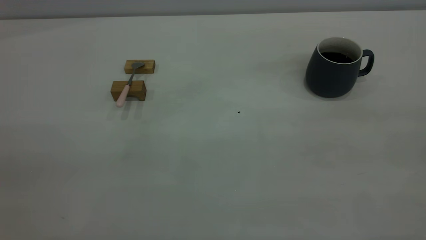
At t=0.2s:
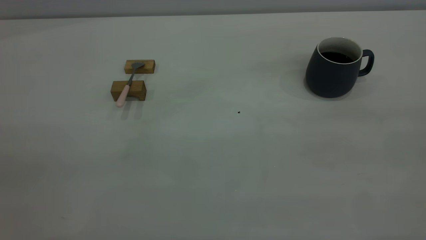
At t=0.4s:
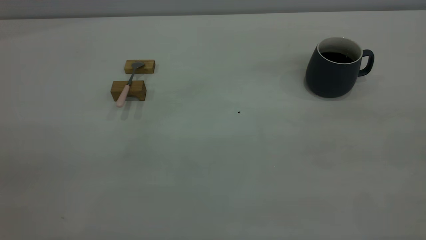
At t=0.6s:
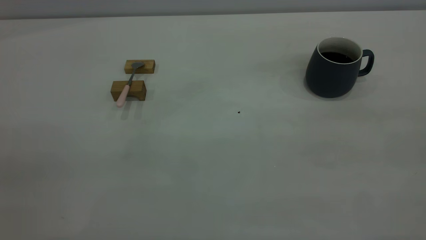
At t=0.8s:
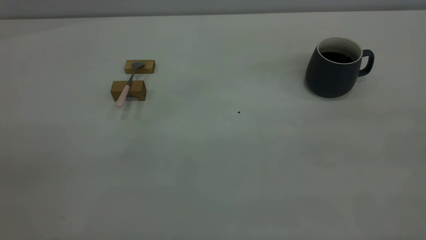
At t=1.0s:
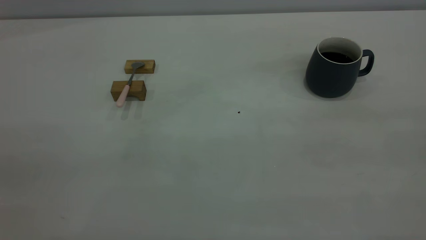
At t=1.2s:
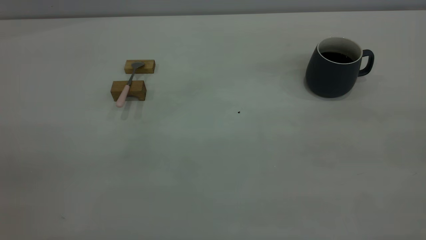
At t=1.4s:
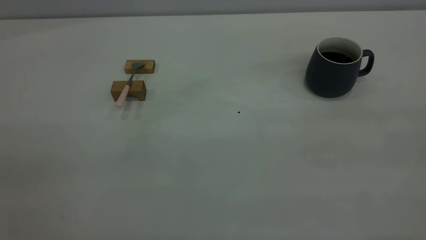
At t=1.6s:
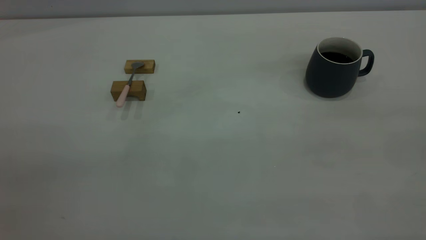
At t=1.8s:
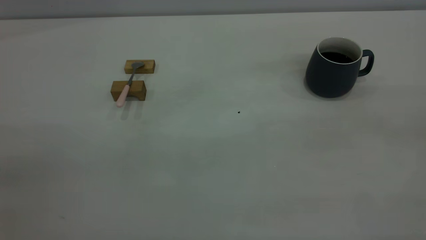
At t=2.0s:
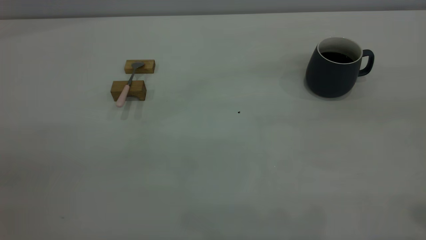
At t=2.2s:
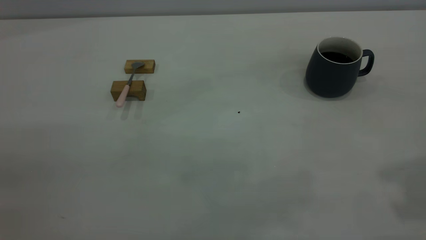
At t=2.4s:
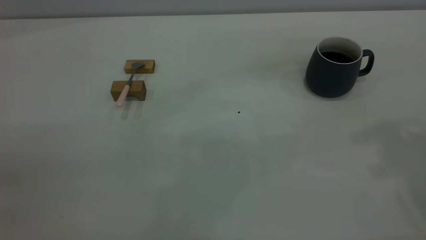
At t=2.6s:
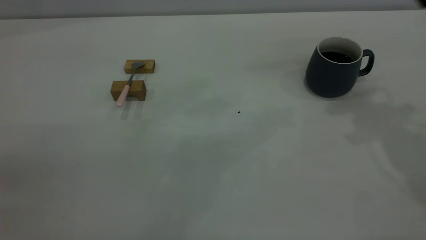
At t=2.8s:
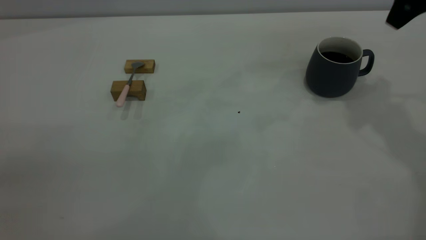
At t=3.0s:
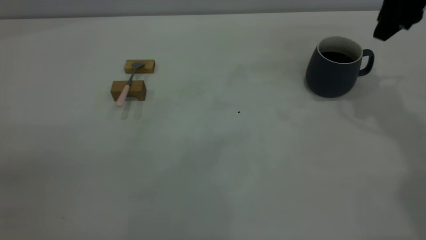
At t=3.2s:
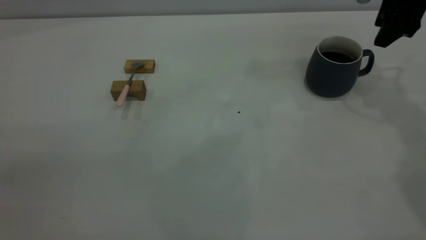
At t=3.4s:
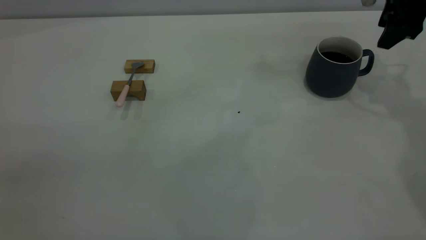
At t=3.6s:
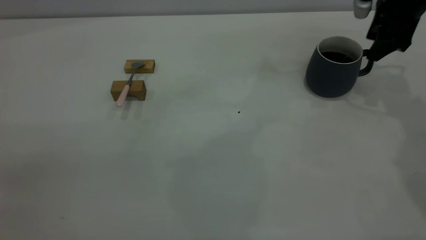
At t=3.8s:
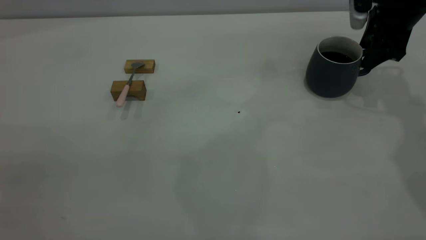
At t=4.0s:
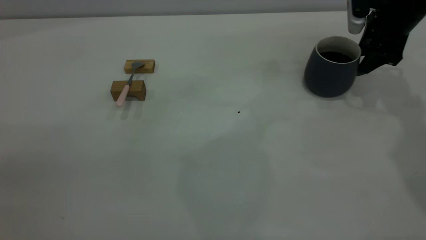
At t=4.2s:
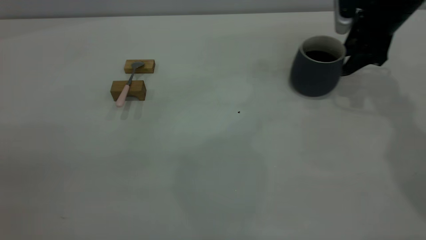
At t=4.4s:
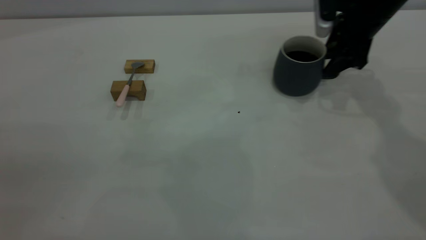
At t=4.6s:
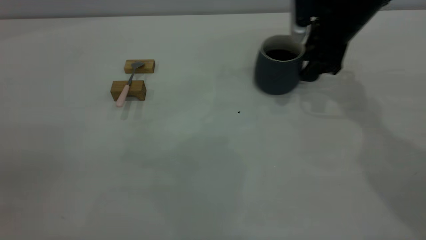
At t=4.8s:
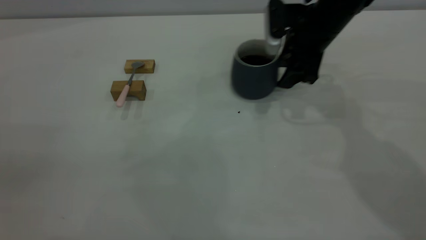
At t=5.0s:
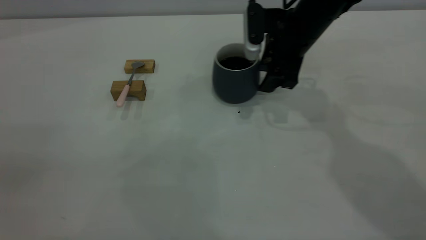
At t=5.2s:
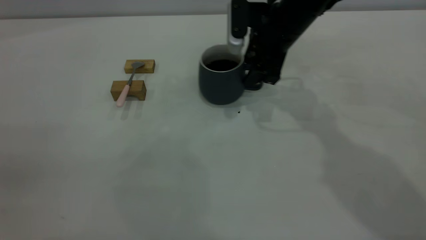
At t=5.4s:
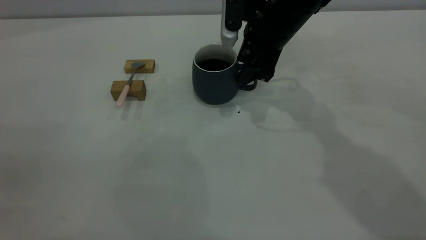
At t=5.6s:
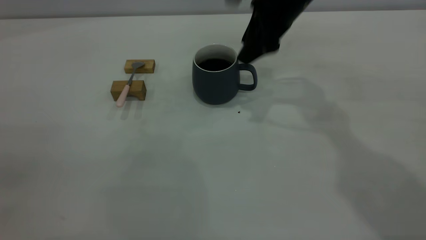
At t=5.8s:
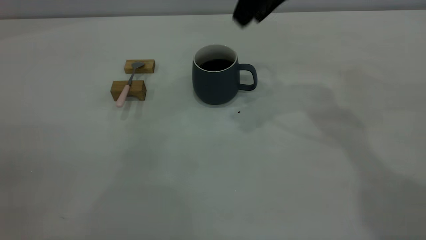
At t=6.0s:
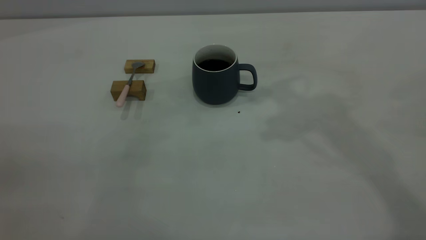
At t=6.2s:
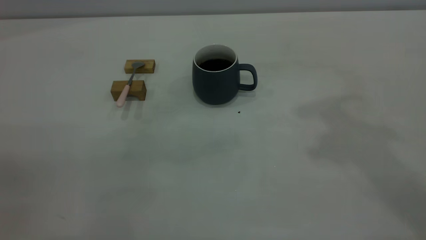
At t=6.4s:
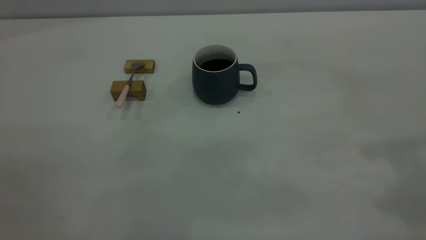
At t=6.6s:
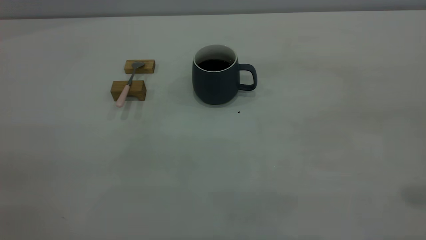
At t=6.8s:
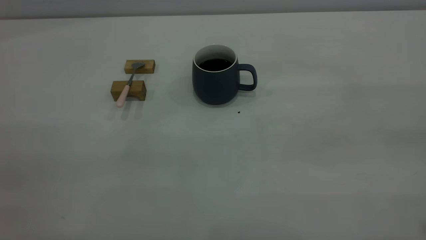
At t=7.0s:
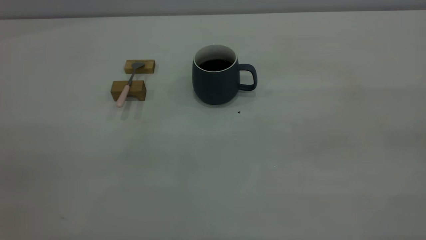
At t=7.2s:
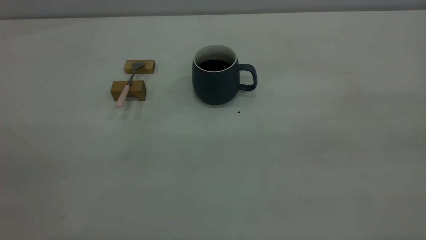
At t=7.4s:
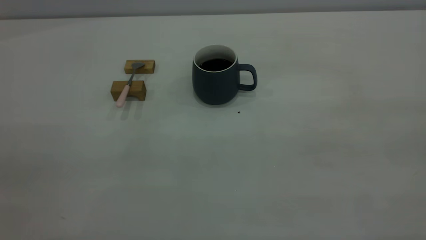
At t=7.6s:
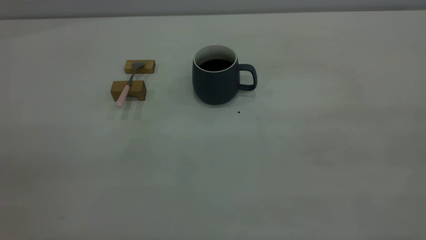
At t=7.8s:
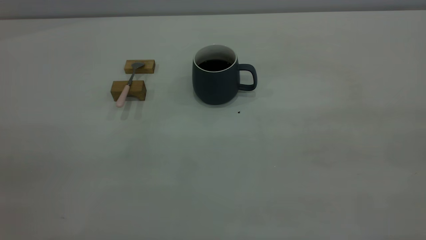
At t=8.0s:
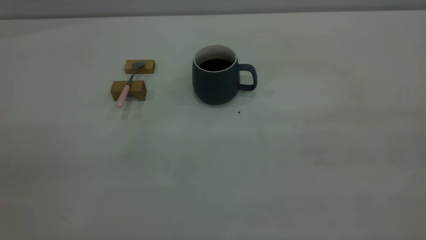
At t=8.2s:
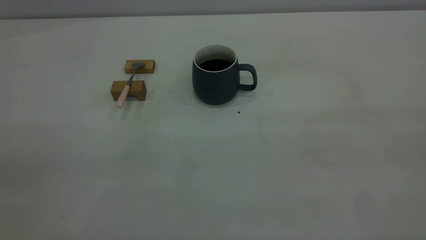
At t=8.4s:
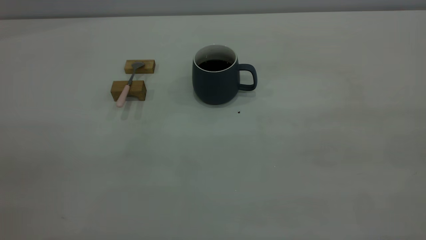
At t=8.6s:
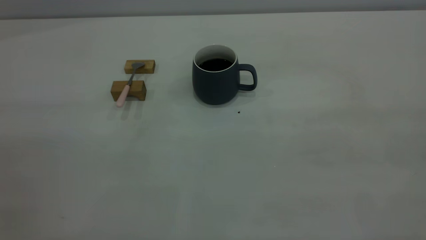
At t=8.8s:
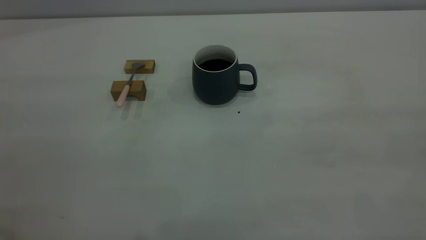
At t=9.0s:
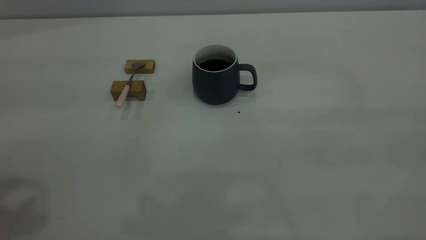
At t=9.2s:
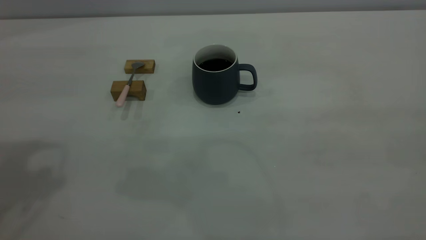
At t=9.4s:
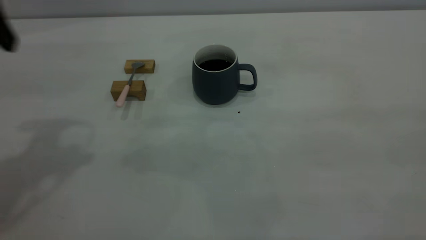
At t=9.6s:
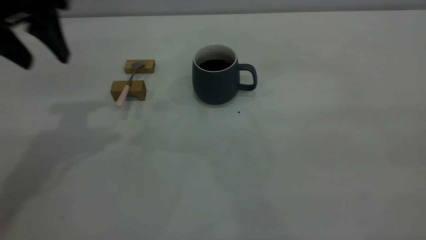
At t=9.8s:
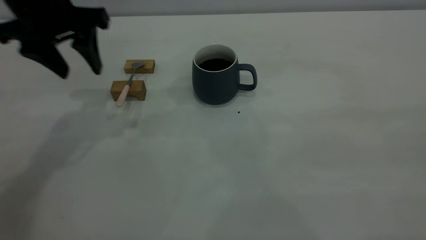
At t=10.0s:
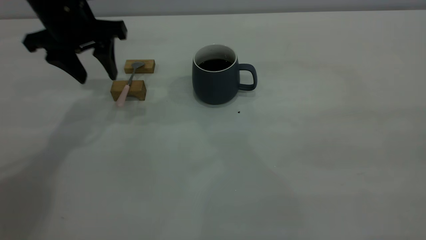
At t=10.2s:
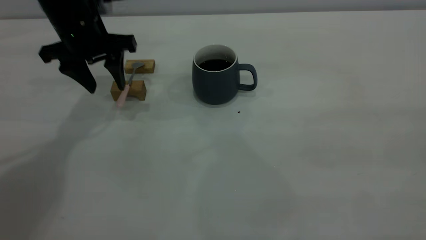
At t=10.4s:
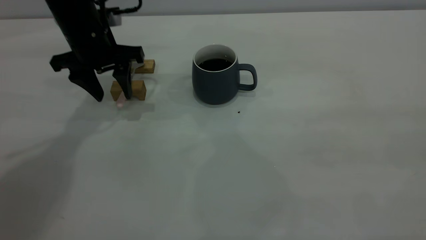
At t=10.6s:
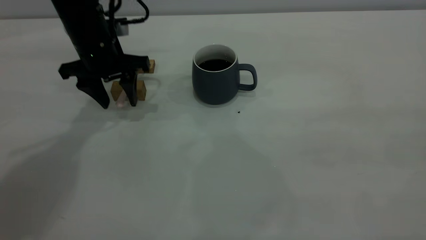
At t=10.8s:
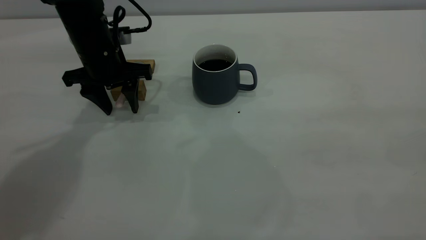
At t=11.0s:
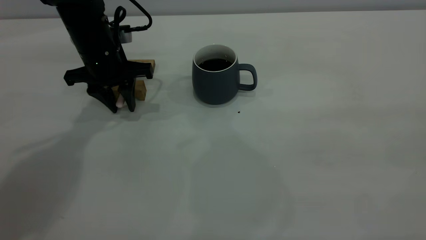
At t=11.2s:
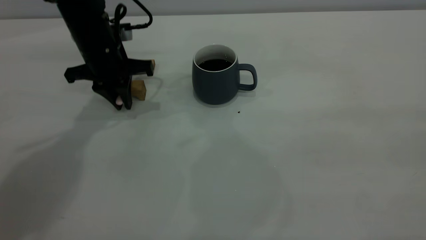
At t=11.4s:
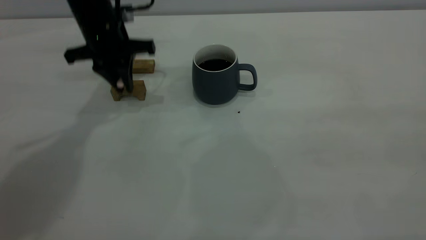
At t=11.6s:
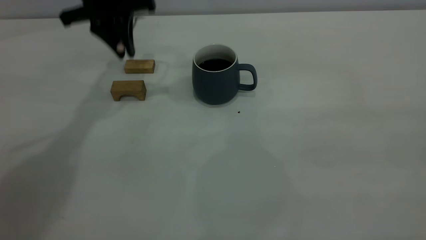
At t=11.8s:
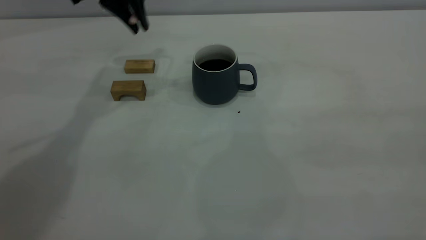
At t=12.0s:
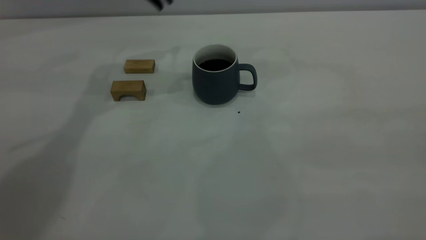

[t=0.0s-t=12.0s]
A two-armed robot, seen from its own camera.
Step, t=0.0s to t=5.6s: Move the cup with coffee to the center of view.
Step, t=5.8s to t=11.4s: Pick up the spoon.
t=0.0s to t=1.6s: The two grippers keep their place.
t=1.6s to t=3.0s: The right gripper moves forward, about 40 cm, and closes its fingers.
t=3.0s to t=4.4s: The right gripper heads downward, covering some 10 cm, and opens.
t=4.4s to t=6.0s: The right gripper travels upward and backward by roughly 25 cm.
t=9.0s to t=10.4s: The left gripper moves downward and forward, about 35 cm.
t=10.4s to t=12.0s: The left gripper heads upward and to the right, covering some 15 cm, and closes.

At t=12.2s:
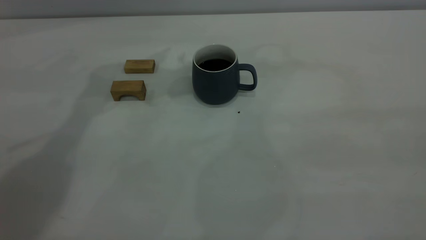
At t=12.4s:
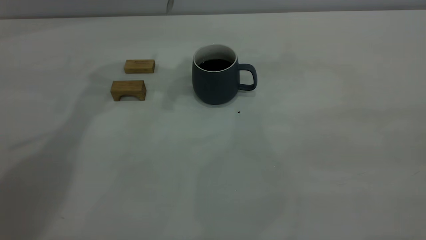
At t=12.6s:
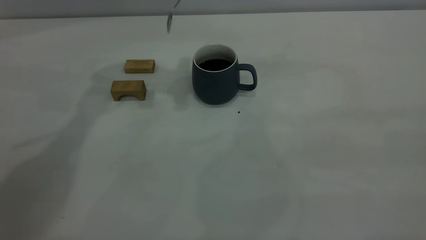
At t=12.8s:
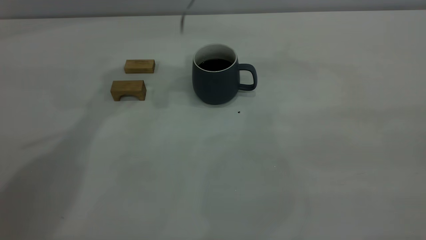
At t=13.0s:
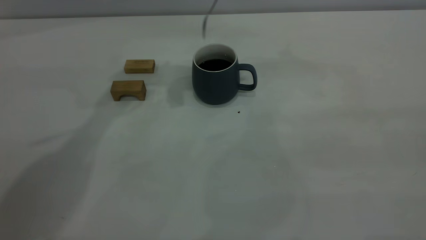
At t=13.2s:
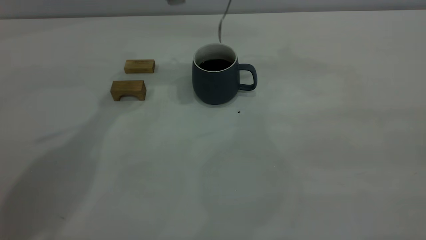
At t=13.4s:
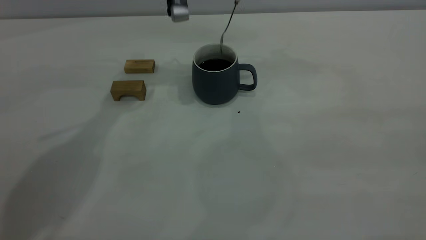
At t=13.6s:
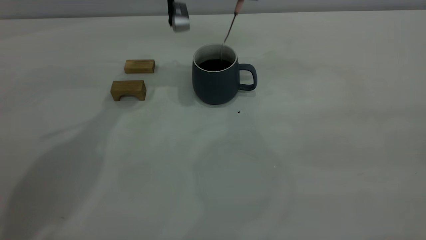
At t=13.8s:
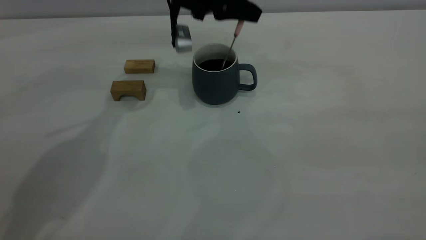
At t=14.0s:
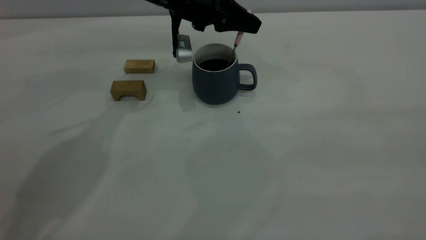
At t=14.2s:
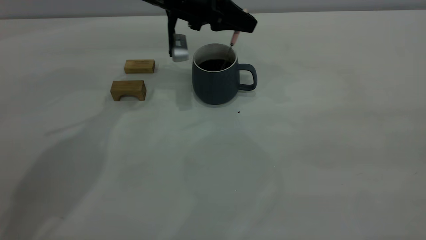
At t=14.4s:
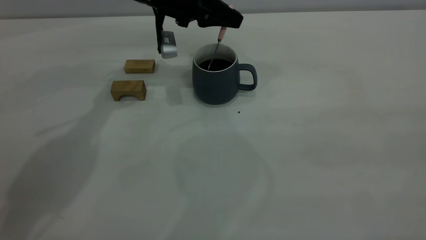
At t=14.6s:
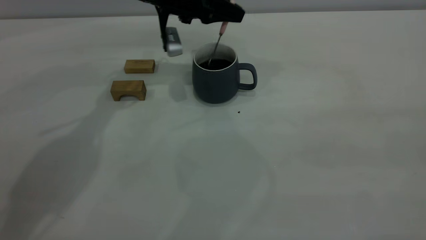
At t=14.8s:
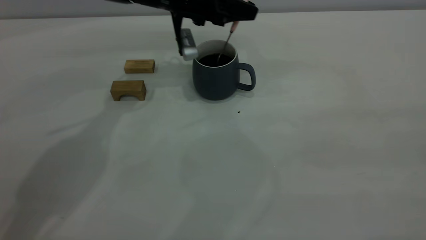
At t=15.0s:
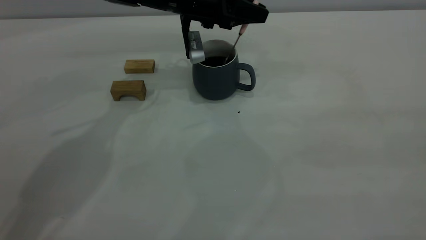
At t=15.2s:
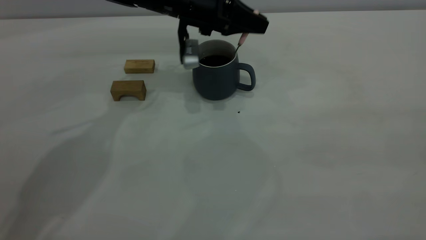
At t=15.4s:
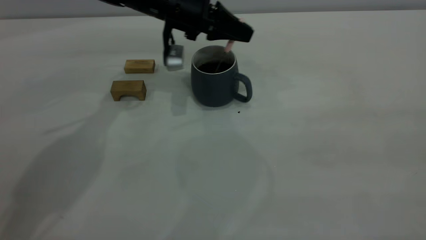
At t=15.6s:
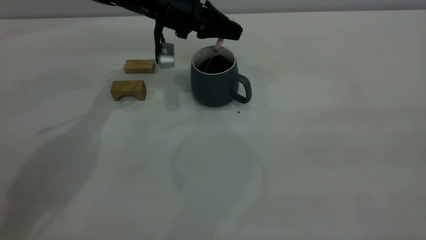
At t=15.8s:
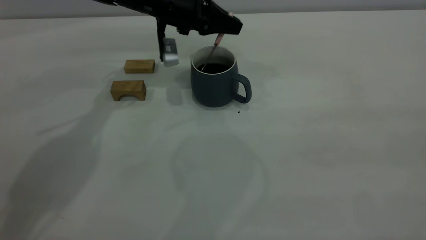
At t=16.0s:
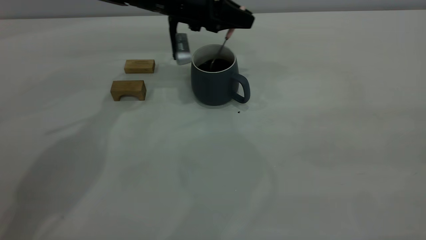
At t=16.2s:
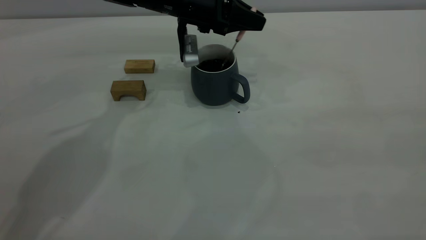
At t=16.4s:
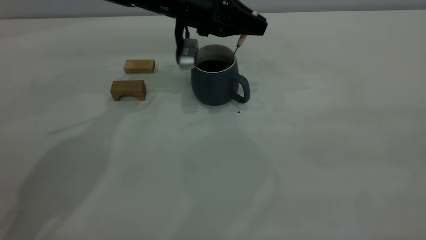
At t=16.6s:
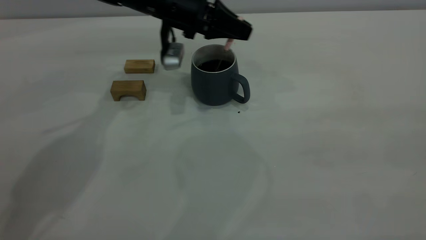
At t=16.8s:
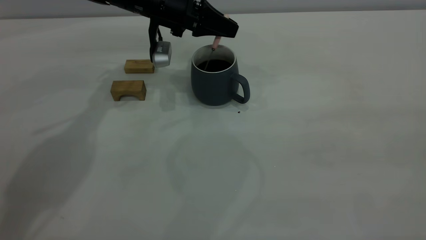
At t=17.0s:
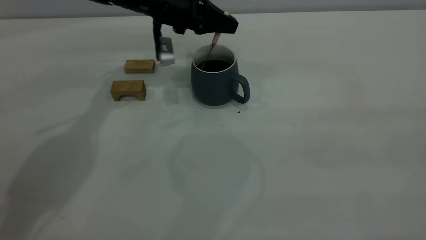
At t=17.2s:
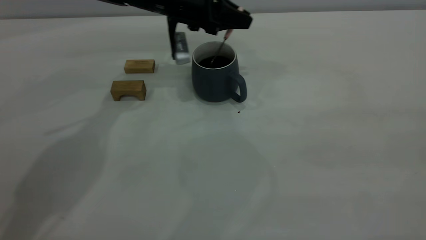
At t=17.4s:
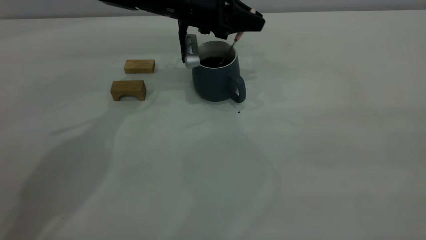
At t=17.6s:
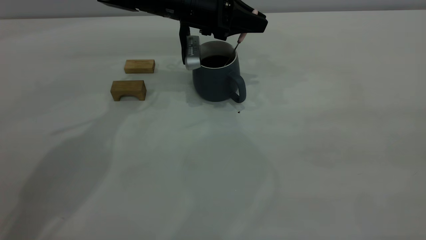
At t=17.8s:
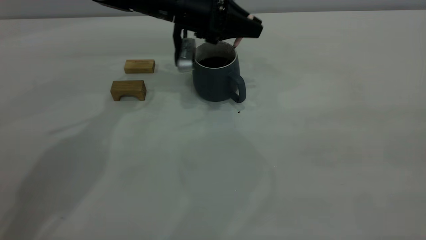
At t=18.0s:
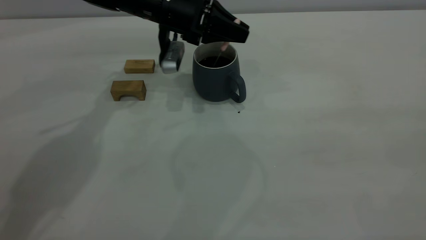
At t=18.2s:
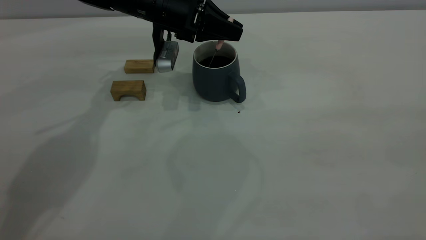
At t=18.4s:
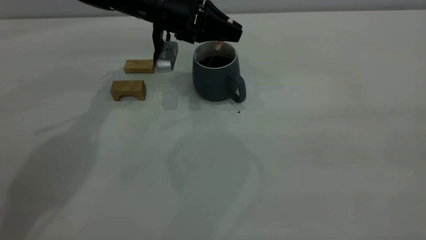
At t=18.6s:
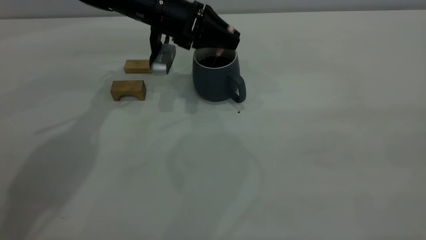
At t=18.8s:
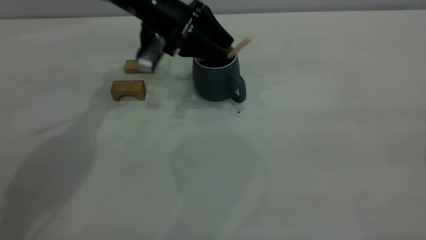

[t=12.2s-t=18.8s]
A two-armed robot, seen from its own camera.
t=12.2s to t=13.8s: The left gripper heads downward, covering roughly 15 cm.
t=13.8s to t=17.2s: The grippers make only small movements.
t=17.2s to t=18.8s: The left gripper opens its fingers.
